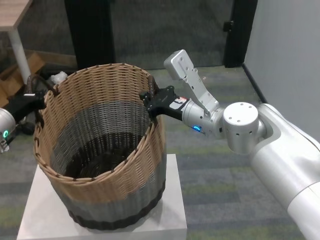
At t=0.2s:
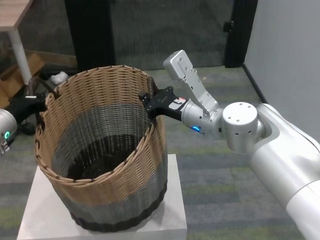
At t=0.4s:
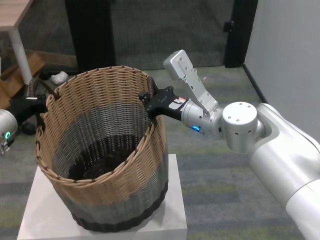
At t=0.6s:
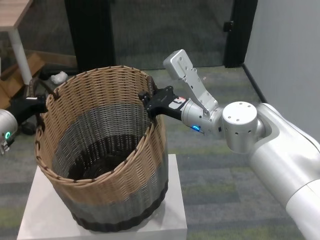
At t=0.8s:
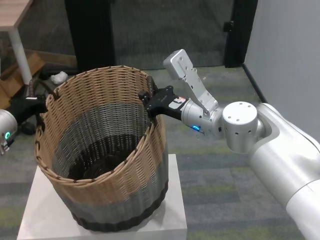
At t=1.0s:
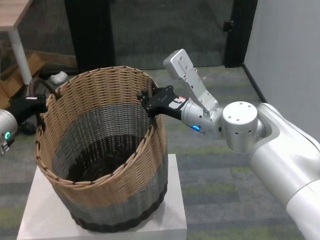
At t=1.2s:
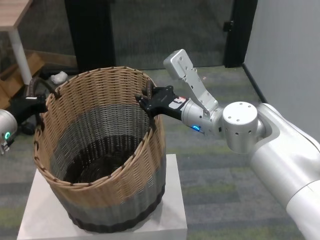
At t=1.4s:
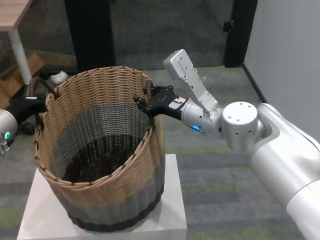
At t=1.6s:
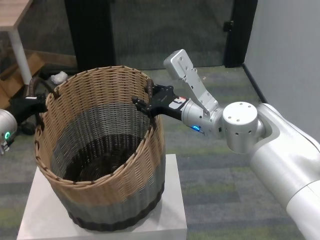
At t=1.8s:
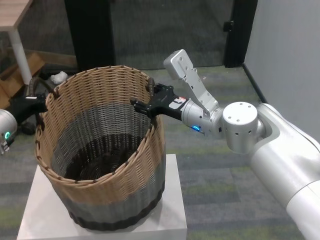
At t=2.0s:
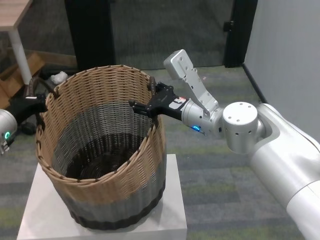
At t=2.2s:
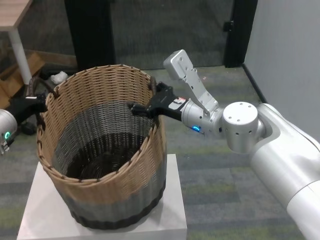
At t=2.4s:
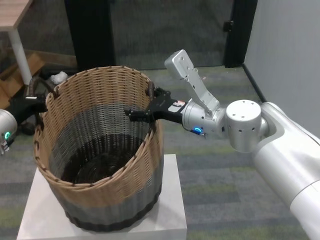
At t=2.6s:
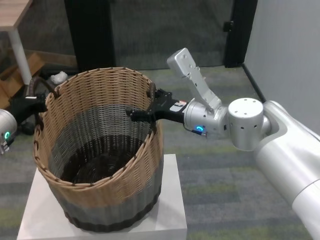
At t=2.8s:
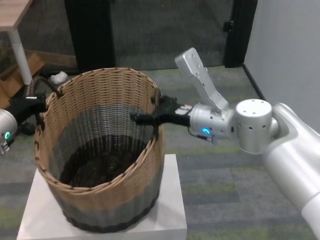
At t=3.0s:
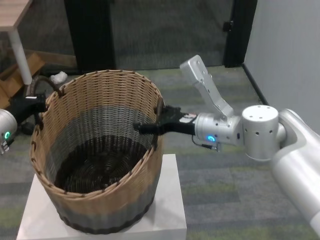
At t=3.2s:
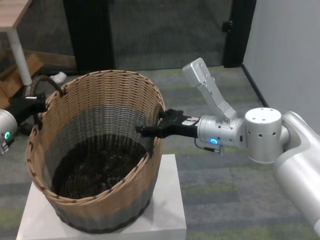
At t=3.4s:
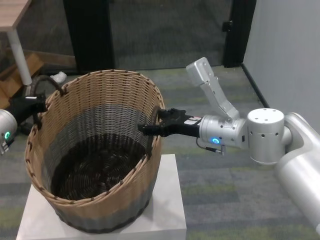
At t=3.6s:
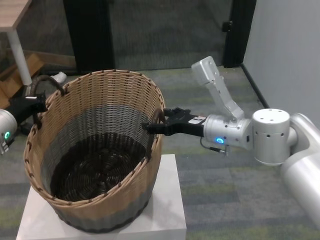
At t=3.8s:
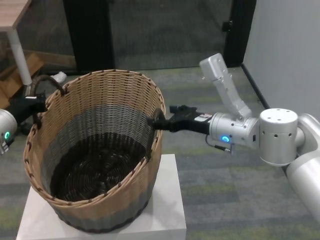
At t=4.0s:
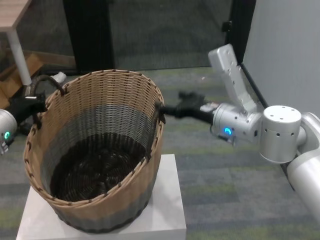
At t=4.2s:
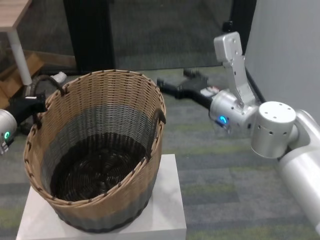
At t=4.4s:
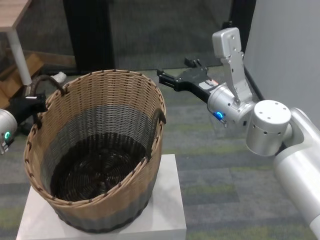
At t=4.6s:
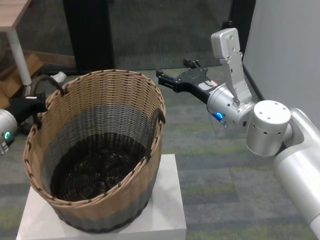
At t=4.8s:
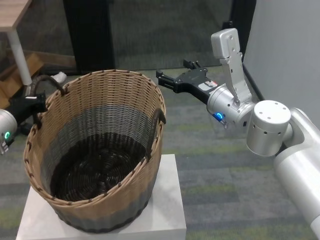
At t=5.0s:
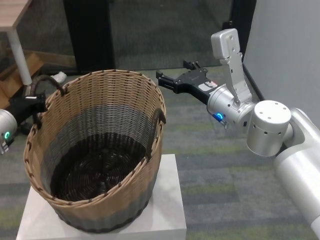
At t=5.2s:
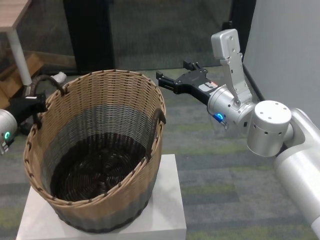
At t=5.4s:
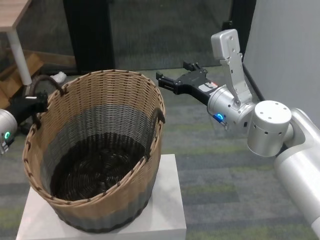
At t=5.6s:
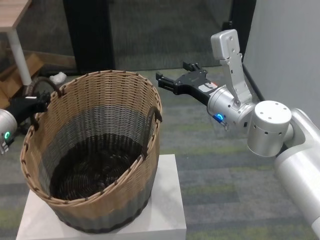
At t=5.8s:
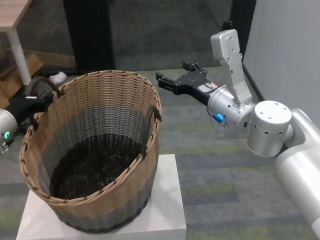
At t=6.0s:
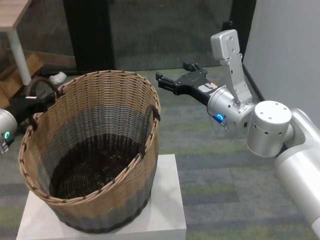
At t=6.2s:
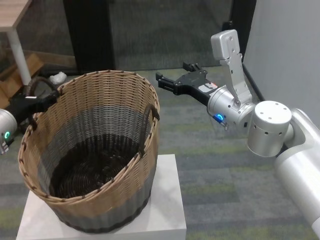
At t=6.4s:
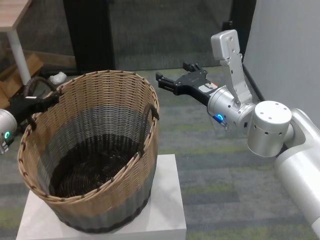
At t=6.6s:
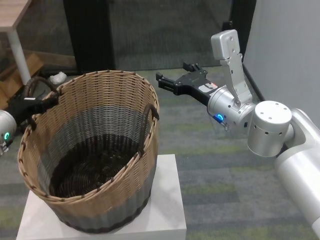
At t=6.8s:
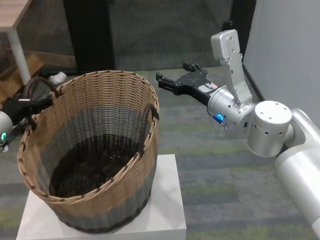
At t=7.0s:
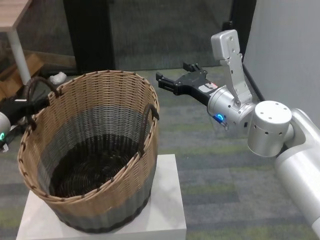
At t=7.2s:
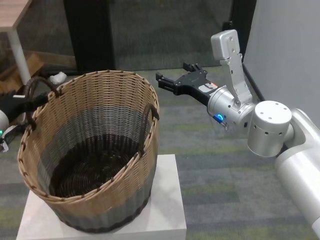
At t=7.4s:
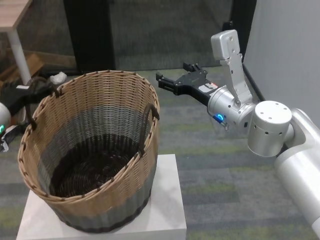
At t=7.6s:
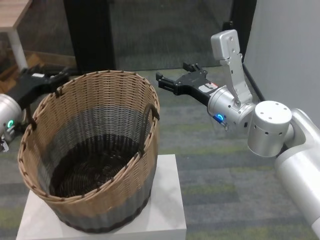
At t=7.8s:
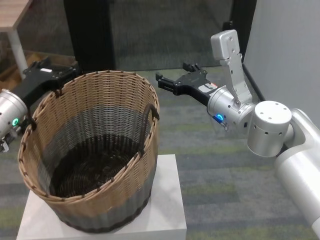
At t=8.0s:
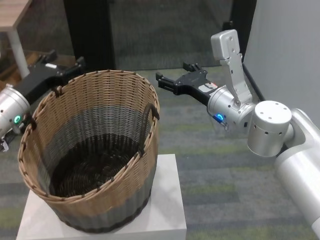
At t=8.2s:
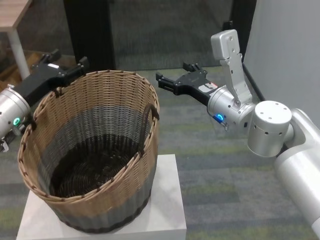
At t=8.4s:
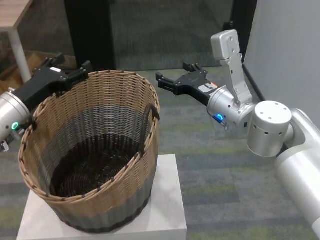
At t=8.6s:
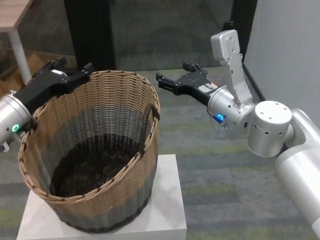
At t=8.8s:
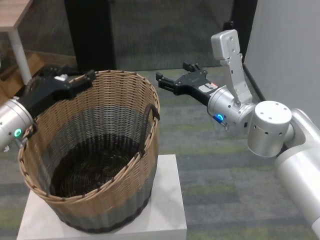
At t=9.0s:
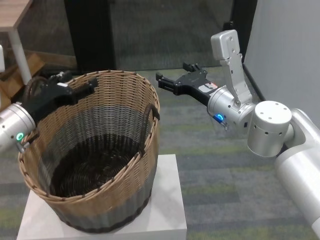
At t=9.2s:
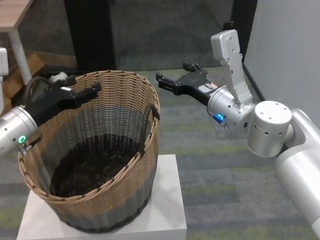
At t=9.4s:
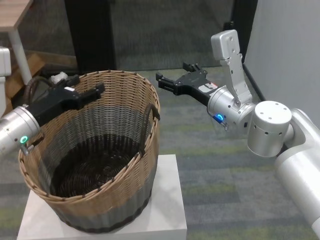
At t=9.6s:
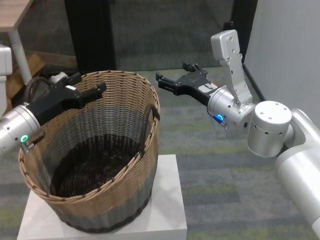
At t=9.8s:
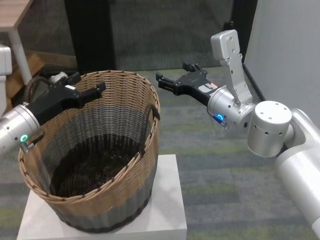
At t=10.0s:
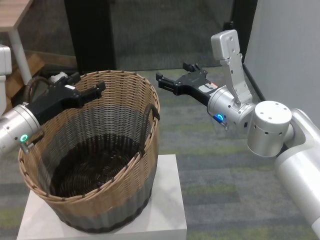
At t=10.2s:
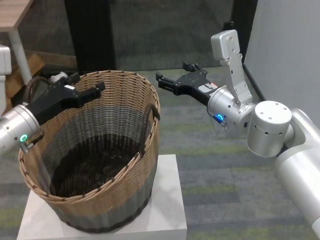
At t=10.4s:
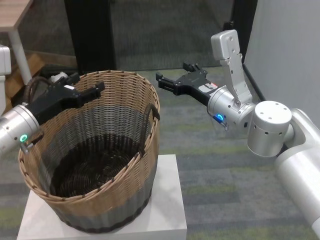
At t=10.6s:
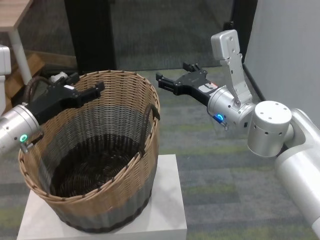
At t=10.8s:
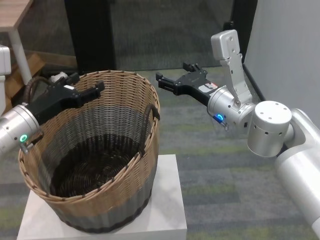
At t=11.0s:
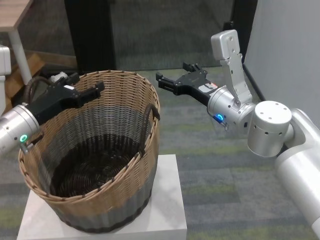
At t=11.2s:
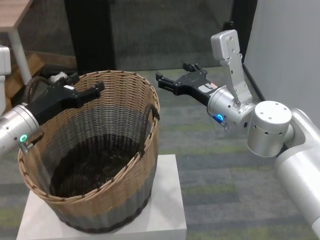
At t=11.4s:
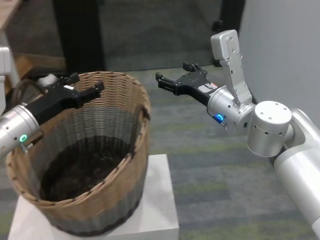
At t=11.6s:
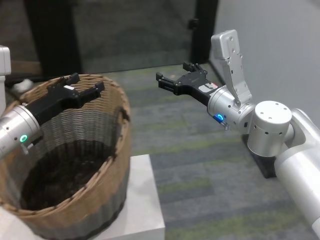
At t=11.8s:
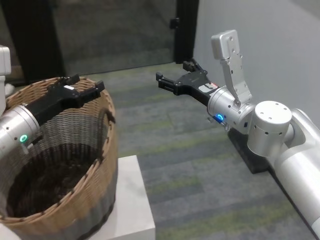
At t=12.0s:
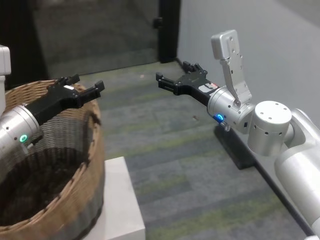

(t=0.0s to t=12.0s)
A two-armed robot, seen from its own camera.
Task of the whole recording: carry the clothes basket in coordination with both hands.
Step, t=0.0s - t=4.0s: Place the basket on the table with right gripper.
Step, t=4.2s - t=7.6s: Place the basket on the table with left gripper.
